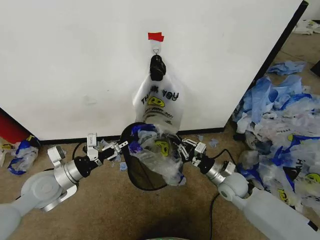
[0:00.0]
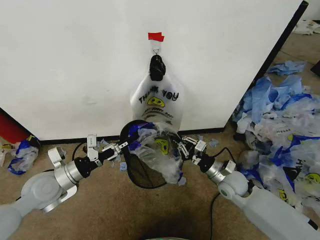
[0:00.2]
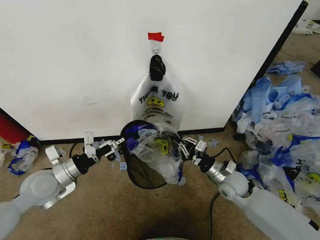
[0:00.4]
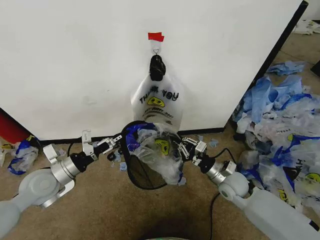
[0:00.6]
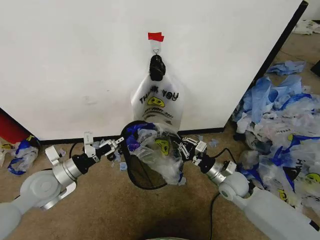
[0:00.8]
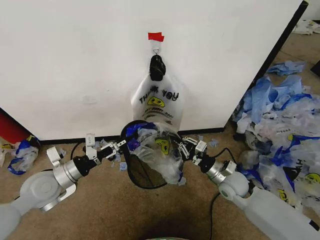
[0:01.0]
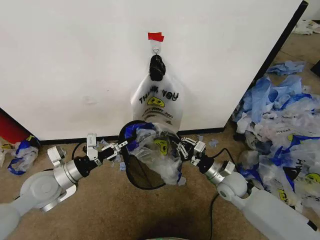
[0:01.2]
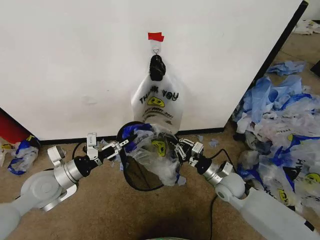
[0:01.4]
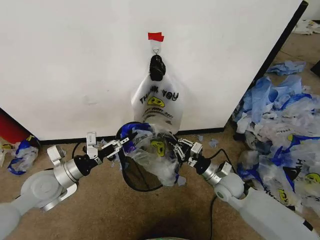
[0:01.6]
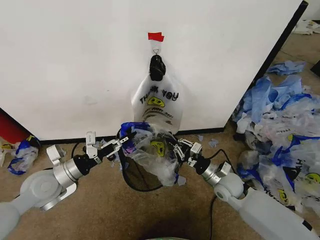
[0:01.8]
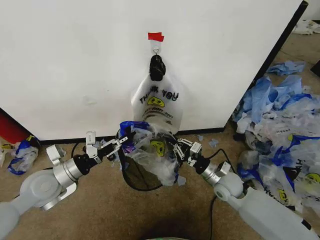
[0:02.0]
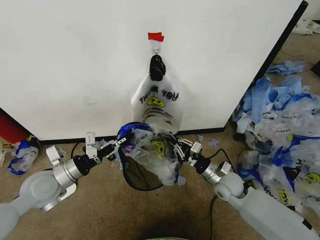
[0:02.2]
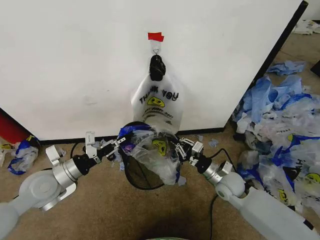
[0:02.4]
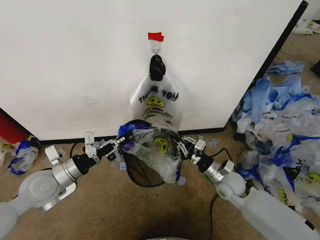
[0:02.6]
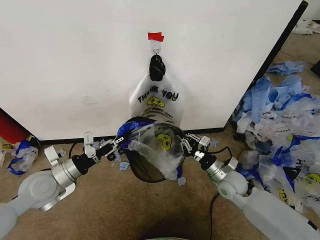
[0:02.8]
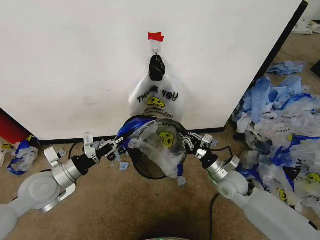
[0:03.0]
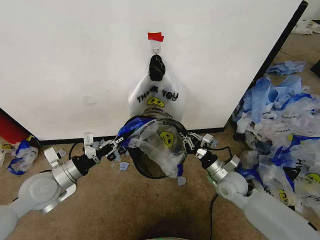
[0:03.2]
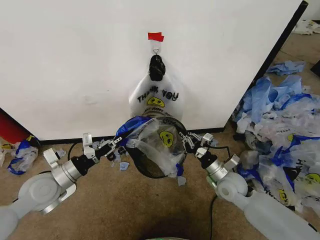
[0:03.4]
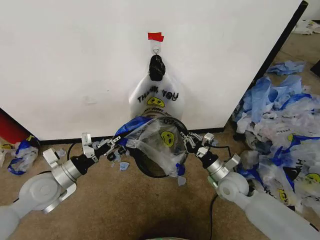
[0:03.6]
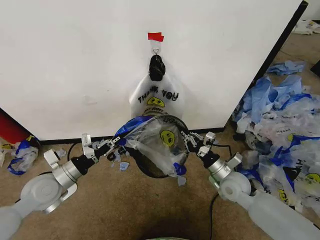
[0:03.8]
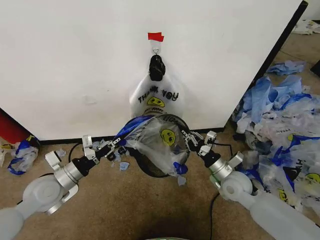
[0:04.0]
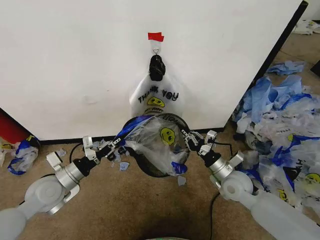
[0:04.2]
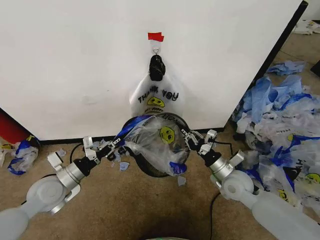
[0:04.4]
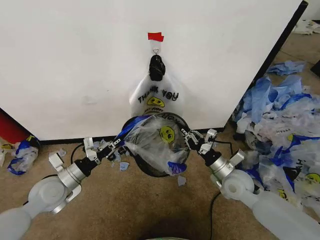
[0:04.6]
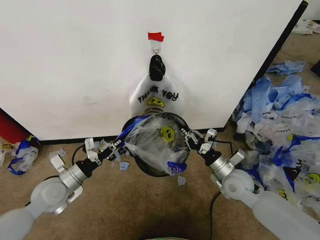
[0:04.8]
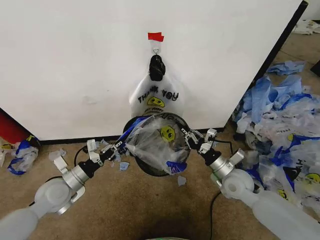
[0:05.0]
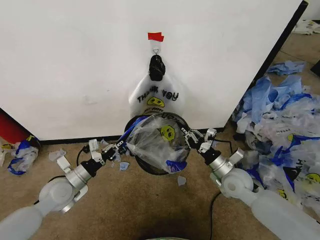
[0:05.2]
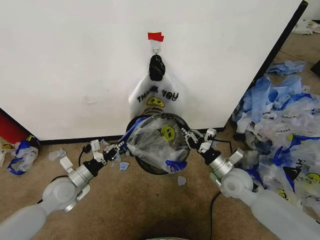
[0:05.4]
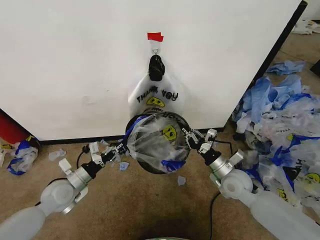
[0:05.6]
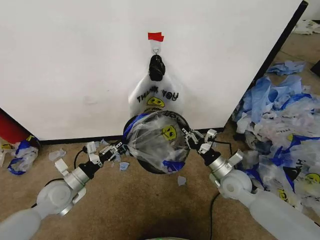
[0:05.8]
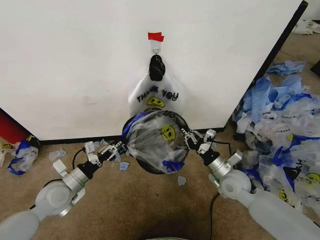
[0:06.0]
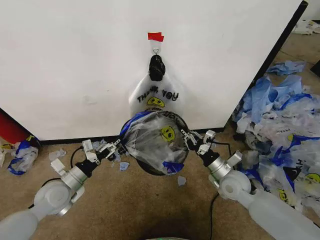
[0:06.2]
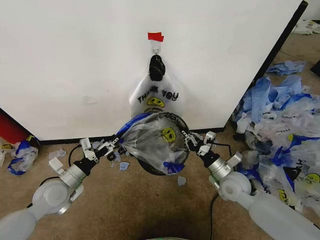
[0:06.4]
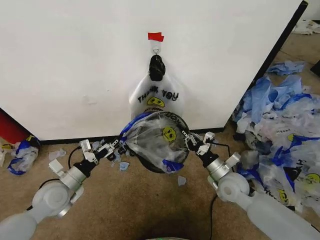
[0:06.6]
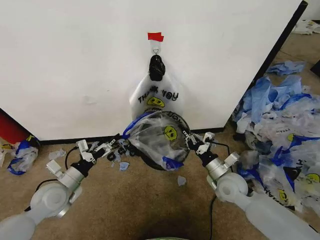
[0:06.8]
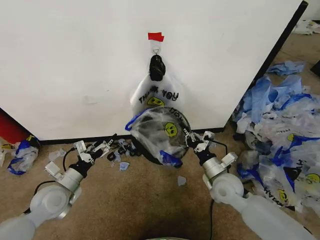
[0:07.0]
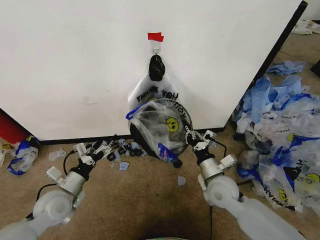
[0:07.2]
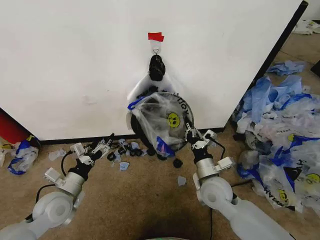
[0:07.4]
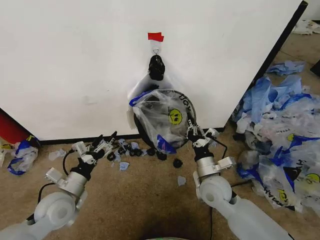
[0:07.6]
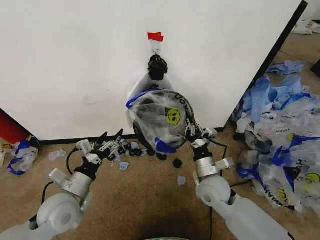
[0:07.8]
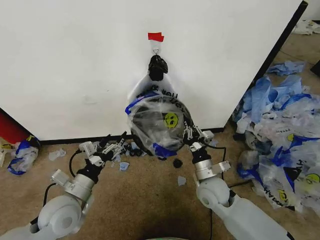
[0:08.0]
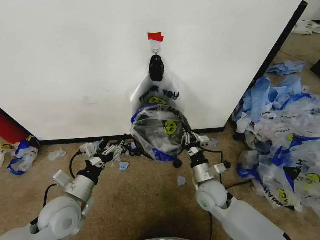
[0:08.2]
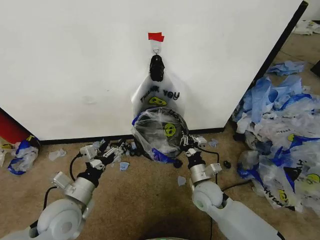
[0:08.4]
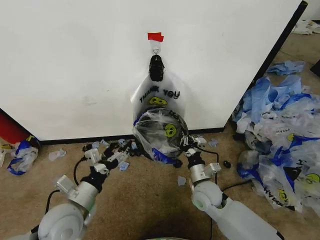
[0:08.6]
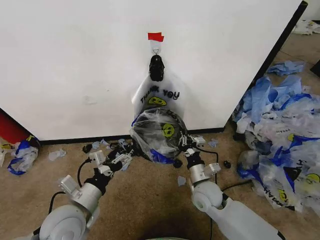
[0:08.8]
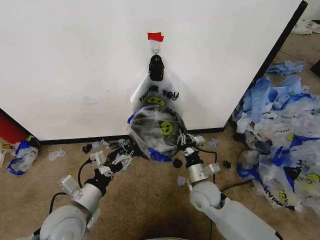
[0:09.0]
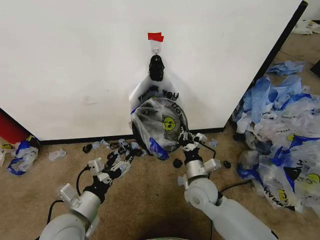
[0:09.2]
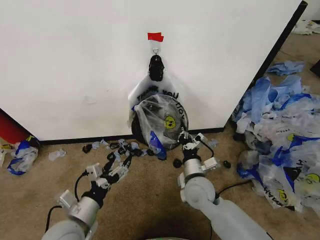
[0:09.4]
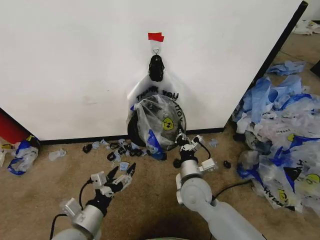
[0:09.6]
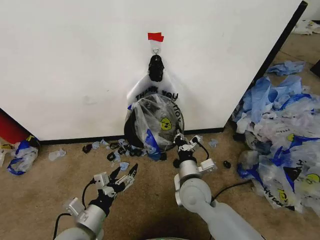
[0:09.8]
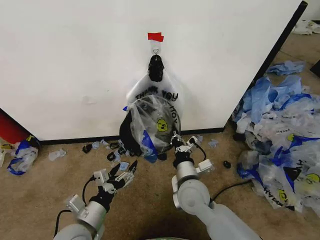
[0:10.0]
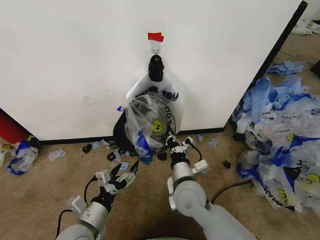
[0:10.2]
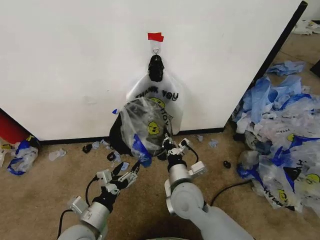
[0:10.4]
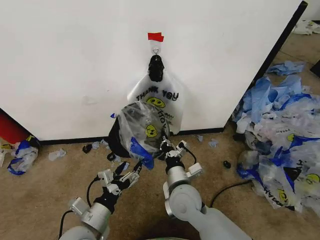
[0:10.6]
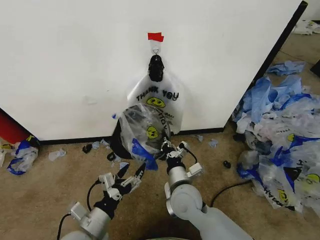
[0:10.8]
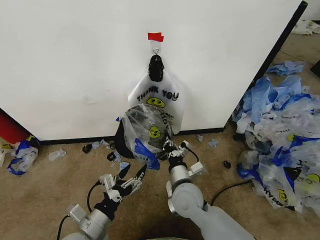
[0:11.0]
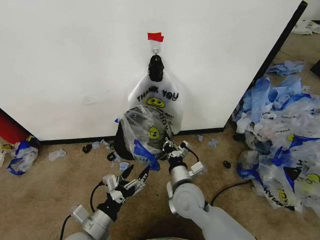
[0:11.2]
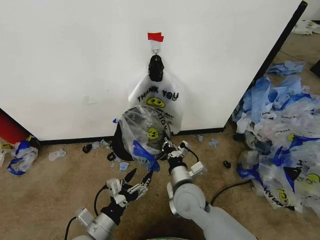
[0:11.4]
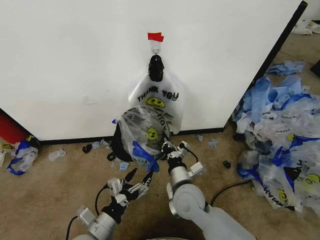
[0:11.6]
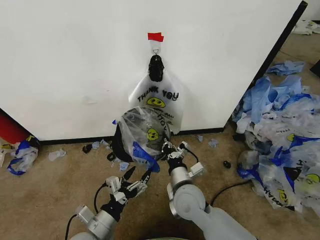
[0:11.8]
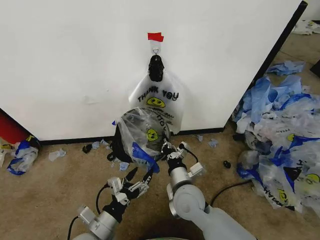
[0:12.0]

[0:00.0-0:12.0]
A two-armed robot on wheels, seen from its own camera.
Task of the whole recording: Pick up the garbage bag from the wall and place it over the trash bin.
0:00.0 to 0:01.6: The left gripper closes its fingers.
0:01.6 to 0:03.0: The left gripper closes.
0:03.0 to 0:04.4: The grippers stay close to where they were, moving slightly.
0:04.4 to 0:06.0: The left gripper opens up.
0:06.0 to 0:07.6: The right gripper shifts about 10 cm to the left; the left gripper changes place by about 5 cm, and opens.
0:07.6 to 0:09.0: The right gripper changes place by roughly 5 cm. The left gripper shifts about 5 cm to the right.
0:09.0 to 0:10.4: The left gripper is displaced downward by about 5 cm. The right gripper moves to the left and upward, approximately 10 cm.
0:10.4 to 0:12.0: The grippers make only small movements.

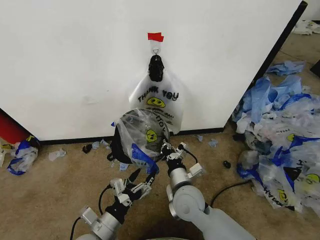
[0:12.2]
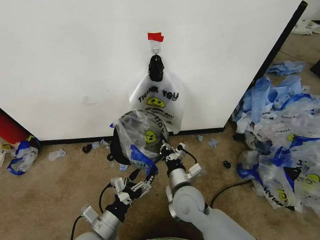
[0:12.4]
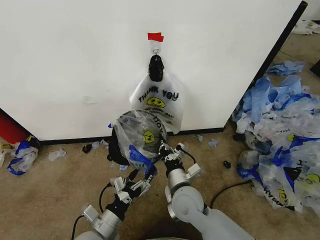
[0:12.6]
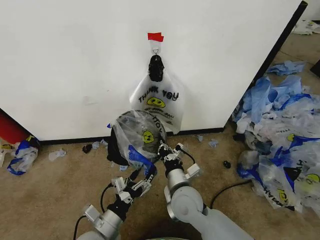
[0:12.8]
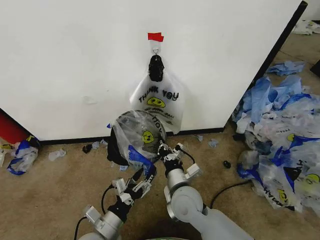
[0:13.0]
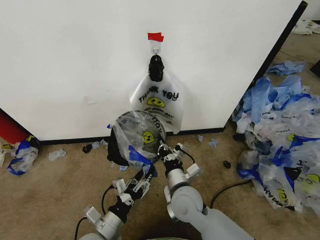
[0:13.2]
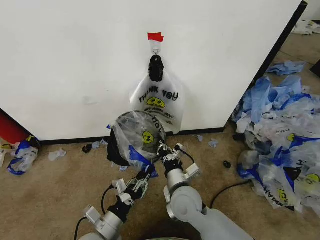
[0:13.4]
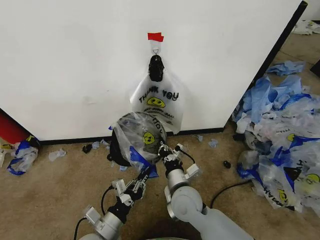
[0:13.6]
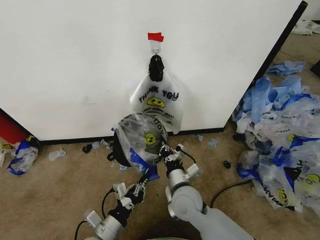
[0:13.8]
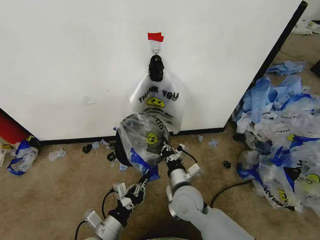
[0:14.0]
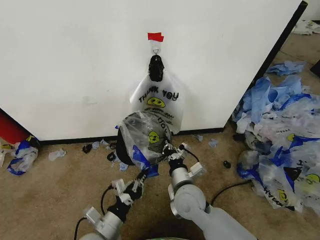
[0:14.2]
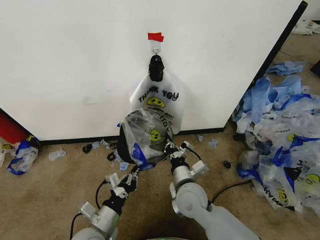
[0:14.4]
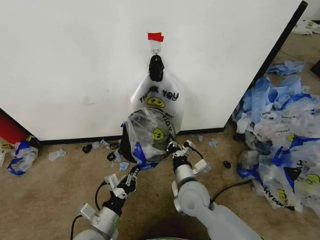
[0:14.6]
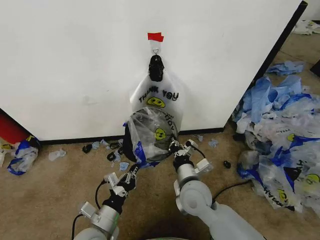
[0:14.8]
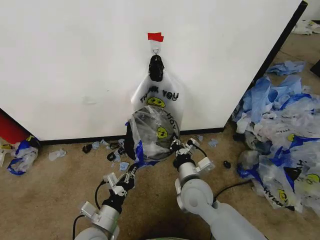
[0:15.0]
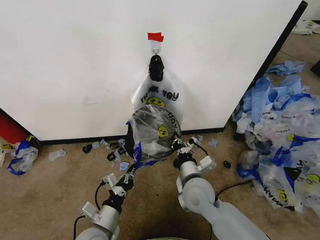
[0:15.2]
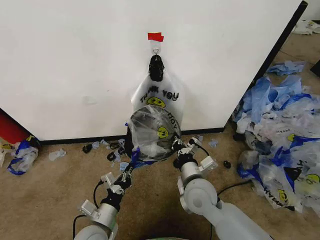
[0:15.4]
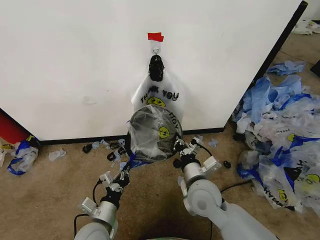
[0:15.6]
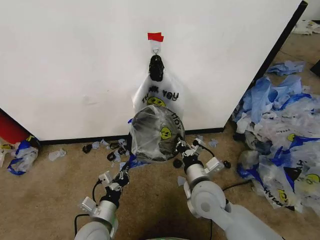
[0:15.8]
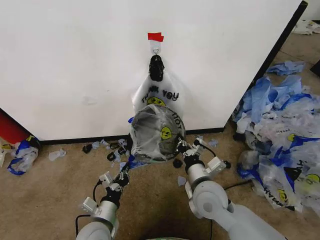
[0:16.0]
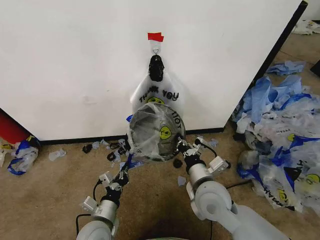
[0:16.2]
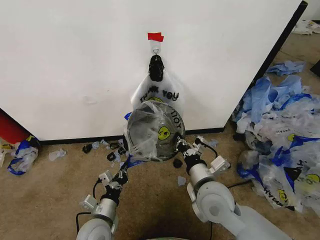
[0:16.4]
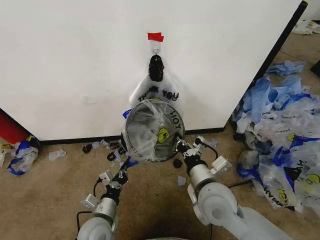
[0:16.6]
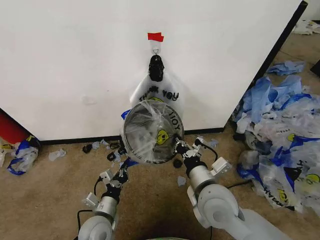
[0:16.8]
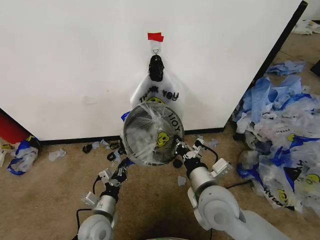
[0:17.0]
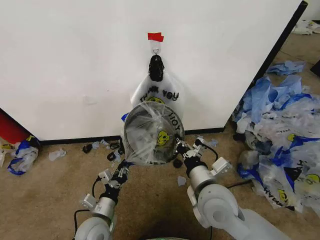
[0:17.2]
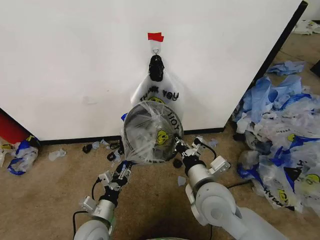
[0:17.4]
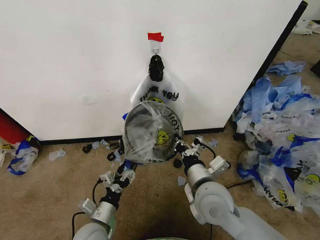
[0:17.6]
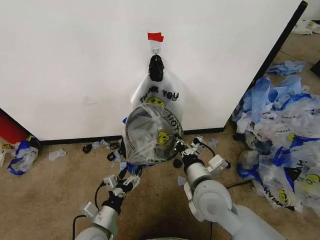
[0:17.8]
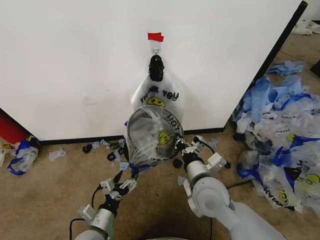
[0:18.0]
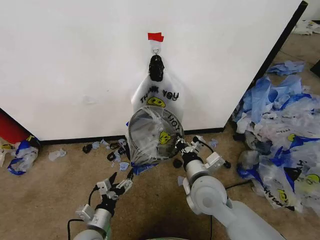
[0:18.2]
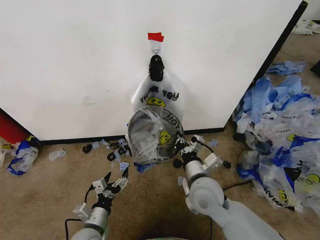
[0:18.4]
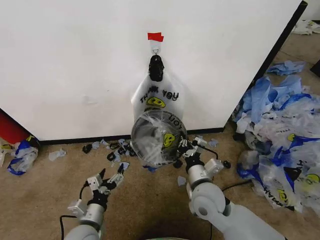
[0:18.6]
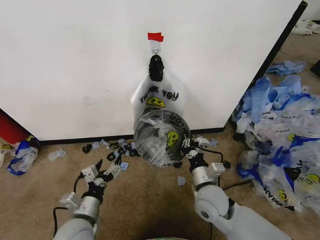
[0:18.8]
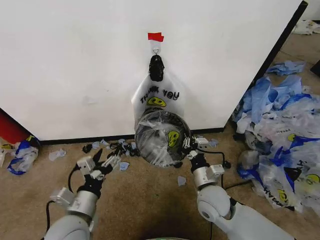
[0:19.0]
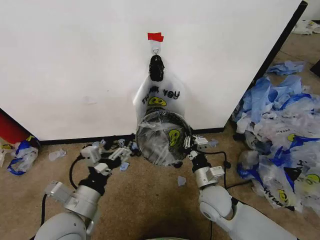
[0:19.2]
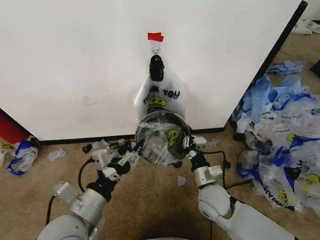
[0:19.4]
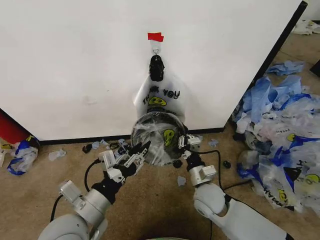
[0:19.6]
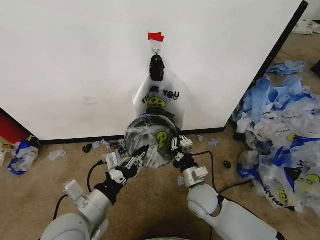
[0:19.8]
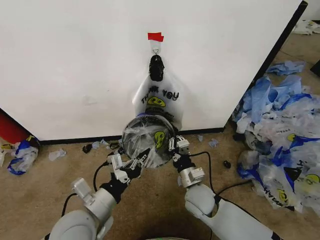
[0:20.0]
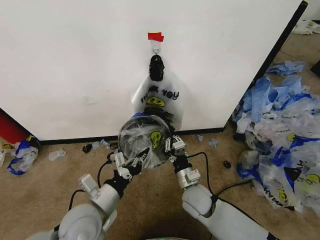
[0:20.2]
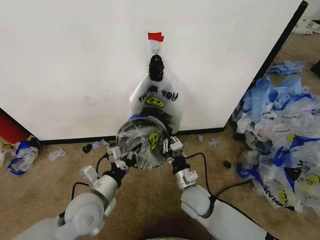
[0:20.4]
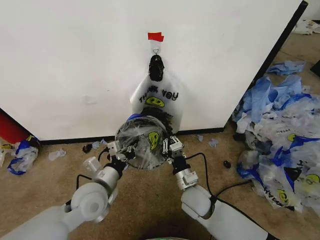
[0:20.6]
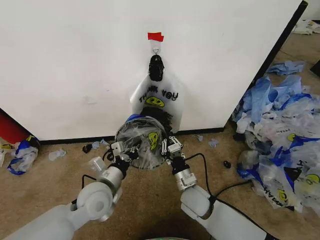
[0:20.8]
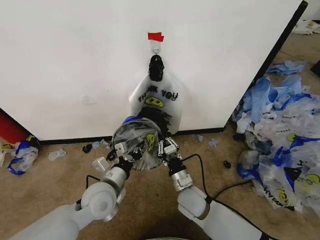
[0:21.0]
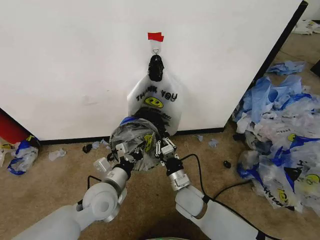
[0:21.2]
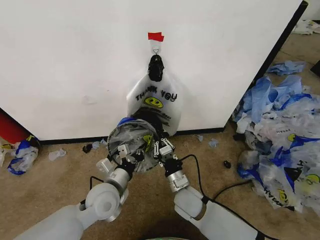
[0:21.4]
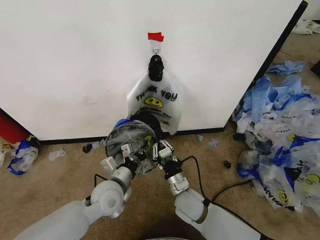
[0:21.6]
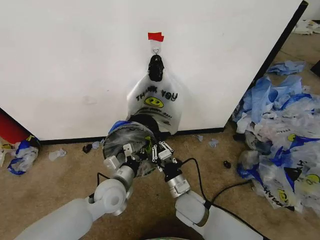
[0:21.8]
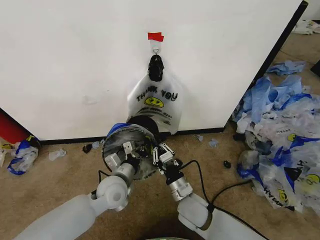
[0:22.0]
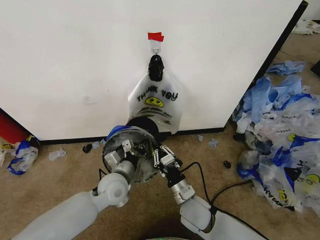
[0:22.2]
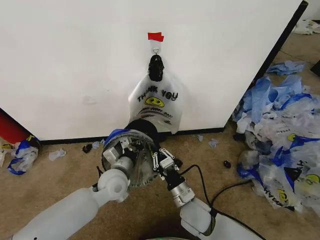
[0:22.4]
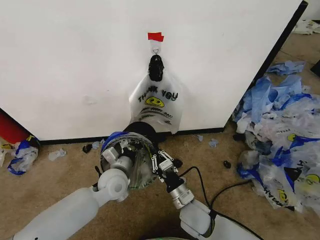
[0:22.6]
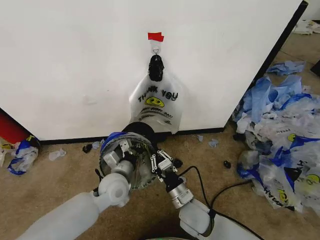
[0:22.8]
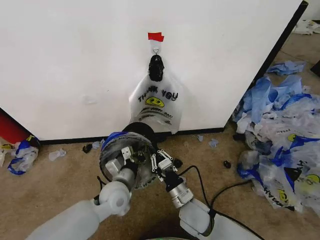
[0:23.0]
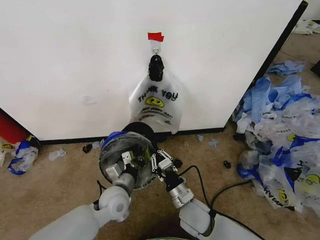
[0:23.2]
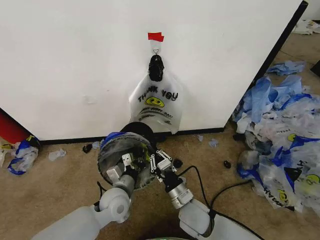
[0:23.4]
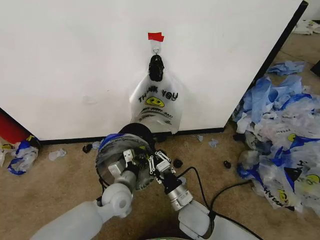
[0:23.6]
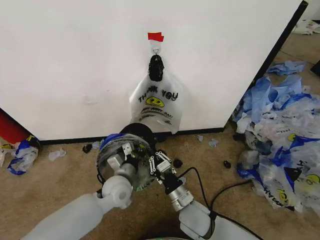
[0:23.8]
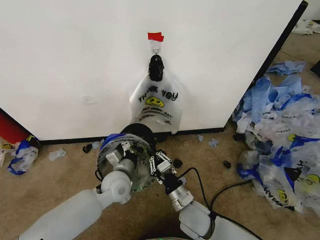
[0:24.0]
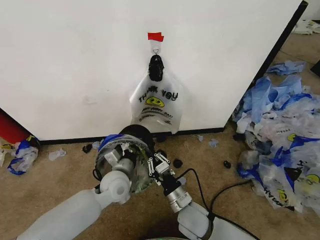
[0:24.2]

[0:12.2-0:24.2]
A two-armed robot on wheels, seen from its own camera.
Task of the whole recording: Pick up the garbage bag from the wall and place it over the trash bin.
0:12.2 to 0:13.8: The left gripper closes its fingers.
0:13.8 to 0:15.2: There are only small adjustments of the grippers.
0:15.2 to 0:16.6: The left gripper moves some 5 cm, while the right gripper moves upward, some 5 cm.
0:16.6 to 0:18.2: The left gripper opens up.
0:18.2 to 0:19.8: The right gripper shifts some 10 cm downward, while the left gripper shifts some 15 cm upward, and closes.
0:19.8 to 0:21.2: The left gripper goes some 10 cm forward and downward.
0:21.2 to 0:22.6: The left gripper moves forward, roughly 5 cm.
